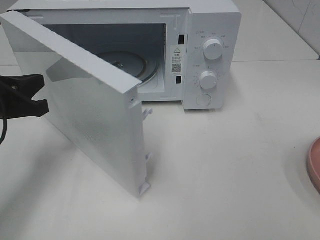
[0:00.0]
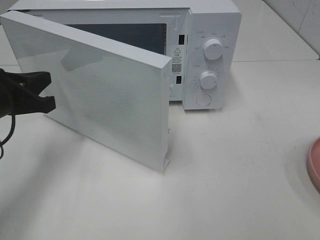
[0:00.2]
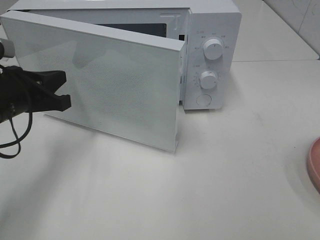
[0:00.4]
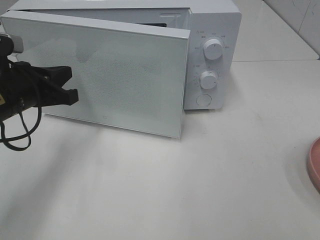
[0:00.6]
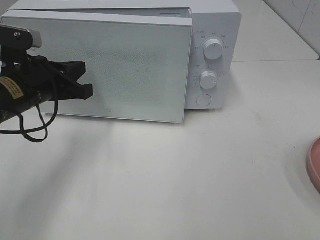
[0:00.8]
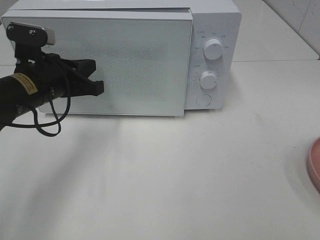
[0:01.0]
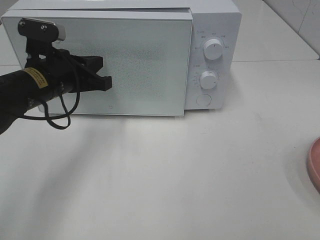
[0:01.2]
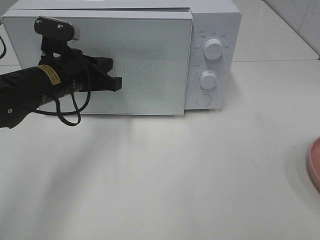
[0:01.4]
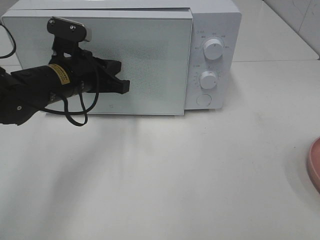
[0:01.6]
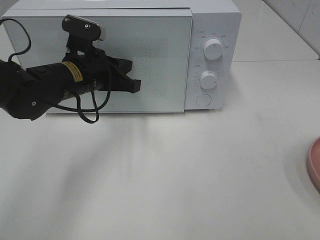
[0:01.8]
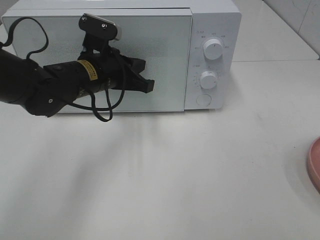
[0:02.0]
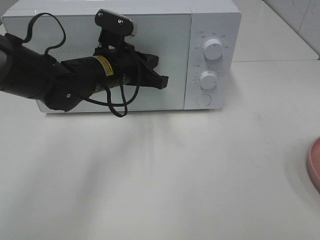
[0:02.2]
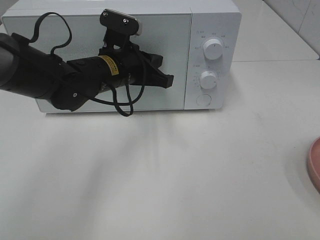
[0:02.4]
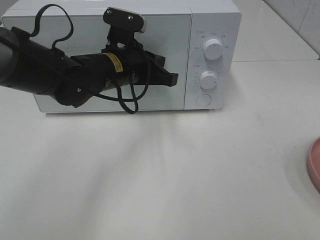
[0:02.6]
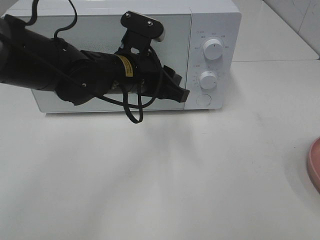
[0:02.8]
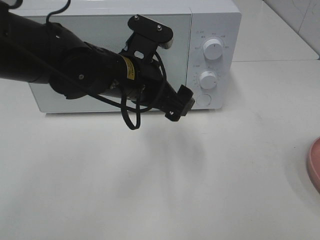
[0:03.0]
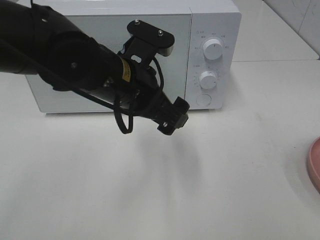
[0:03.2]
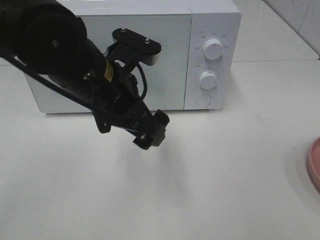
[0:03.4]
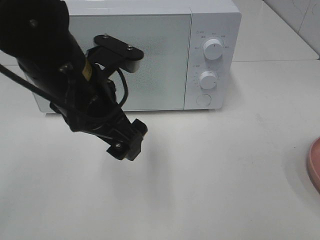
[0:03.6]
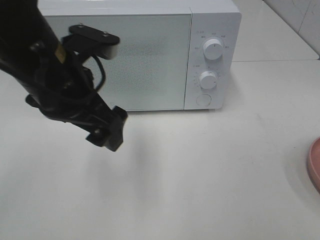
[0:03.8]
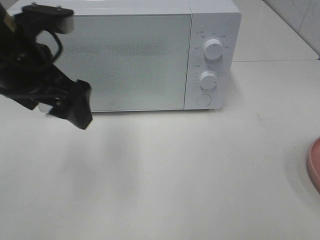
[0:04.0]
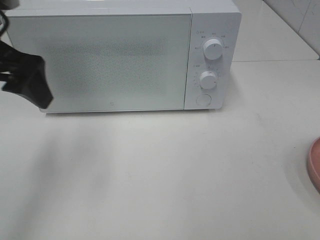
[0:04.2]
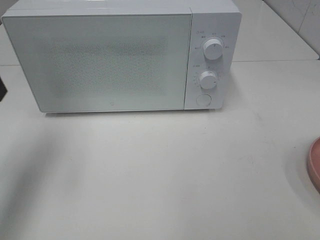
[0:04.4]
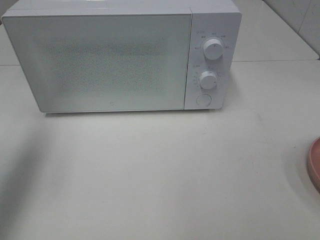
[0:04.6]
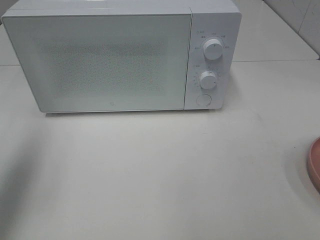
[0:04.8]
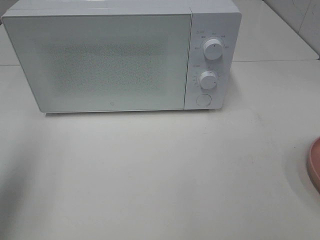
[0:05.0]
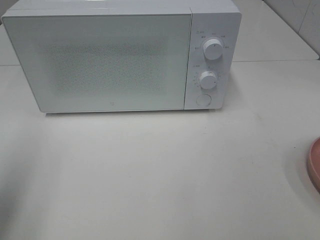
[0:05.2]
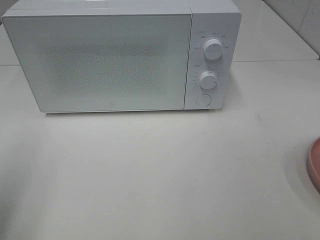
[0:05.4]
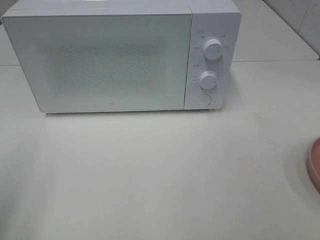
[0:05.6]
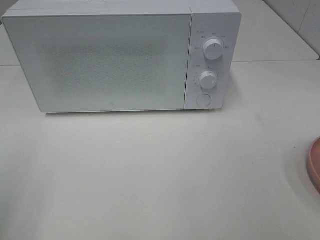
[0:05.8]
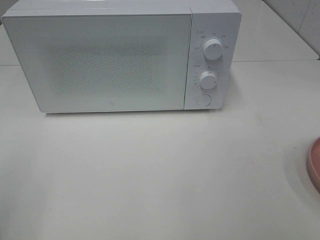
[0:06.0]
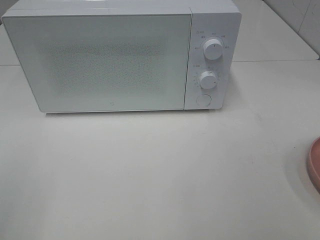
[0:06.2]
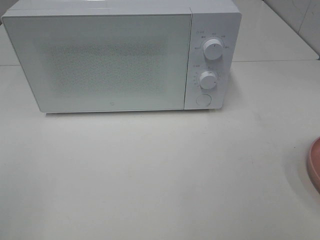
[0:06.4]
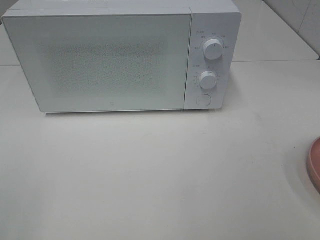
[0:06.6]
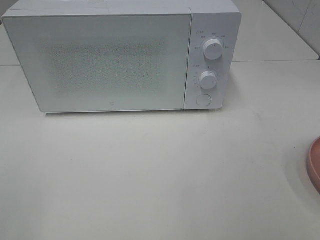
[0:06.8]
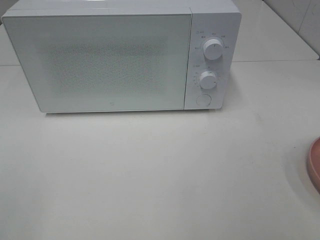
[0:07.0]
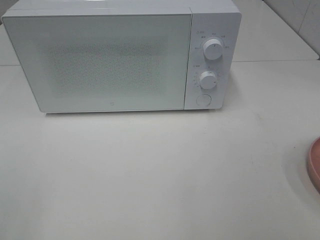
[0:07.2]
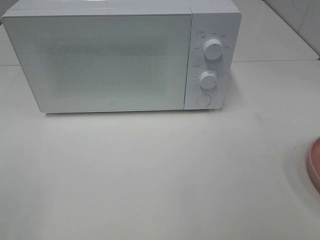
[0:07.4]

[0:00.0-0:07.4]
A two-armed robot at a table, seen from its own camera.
Task of the whole recording: Heat the burger.
Step, 0:00.0 to 0:02.6: Left hand: close the microwave door.
0:00.0 to 0:01.4: The left gripper goes roughly 10 cm to the right and forward.
0:01.4 to 0:03.0: The left gripper heads to the right, covering approximately 10 cm, and opens.
0:03.0 to 0:04.4: The left gripper is displaced to the left and upward by some 25 cm.
0:04.4 to 0:06.0: The left gripper goes about 20 cm backward.
